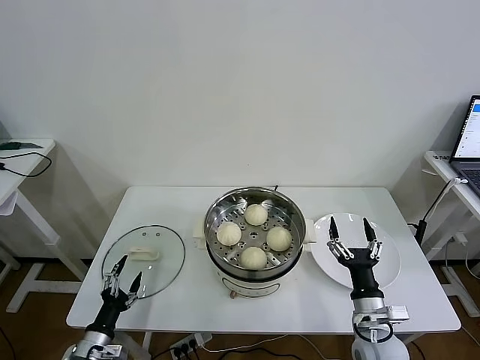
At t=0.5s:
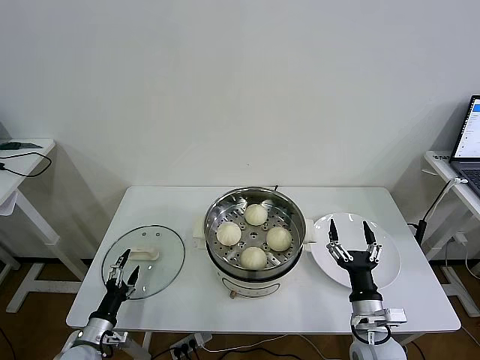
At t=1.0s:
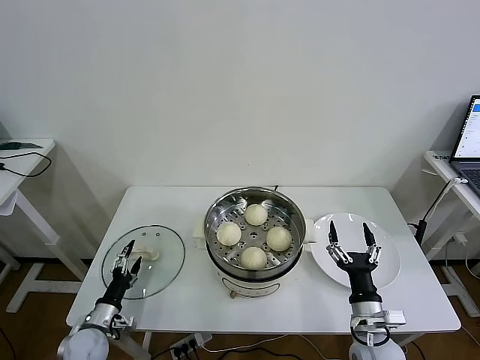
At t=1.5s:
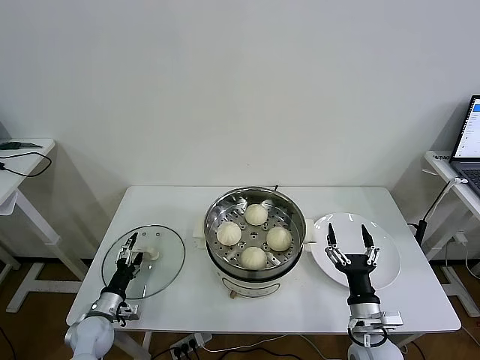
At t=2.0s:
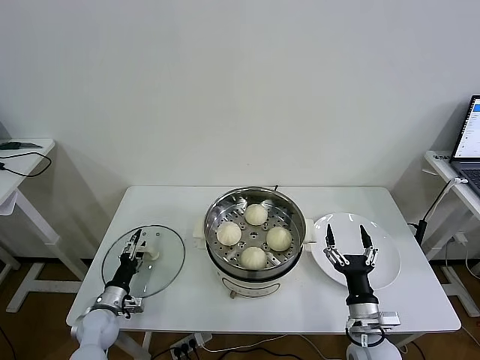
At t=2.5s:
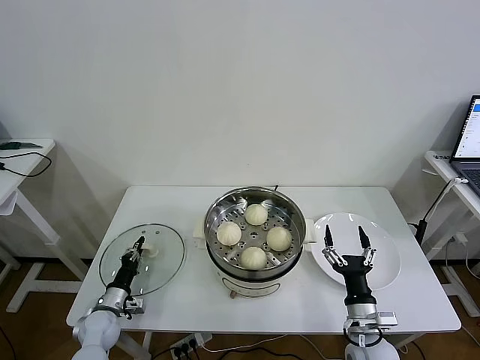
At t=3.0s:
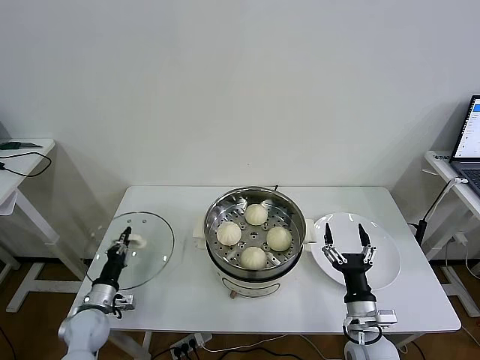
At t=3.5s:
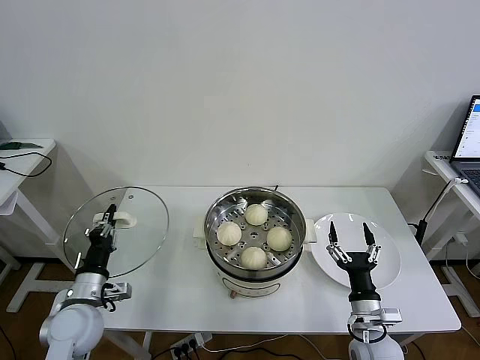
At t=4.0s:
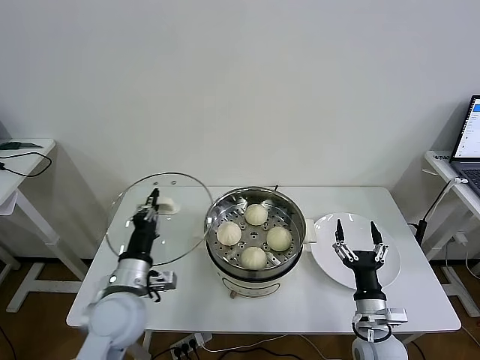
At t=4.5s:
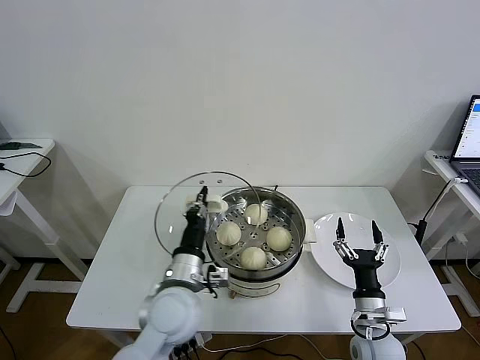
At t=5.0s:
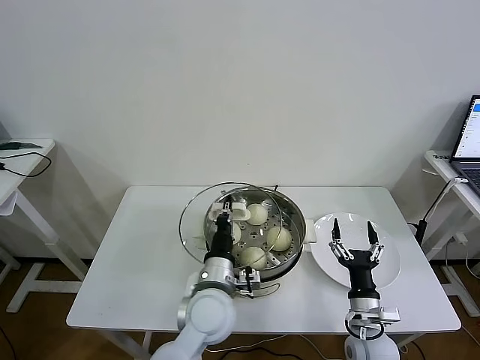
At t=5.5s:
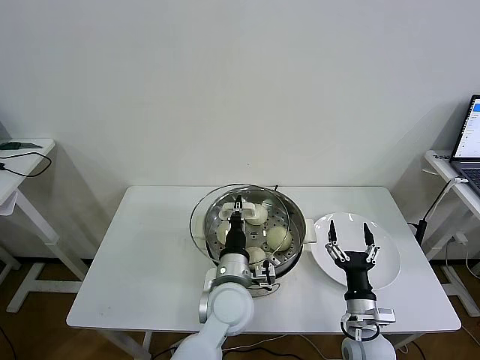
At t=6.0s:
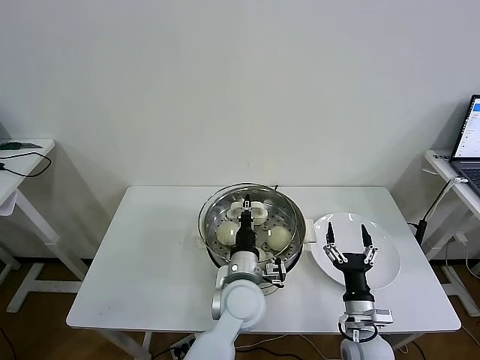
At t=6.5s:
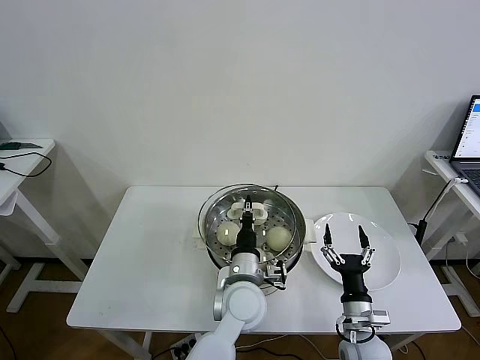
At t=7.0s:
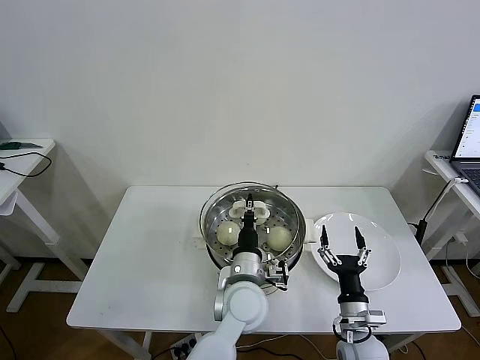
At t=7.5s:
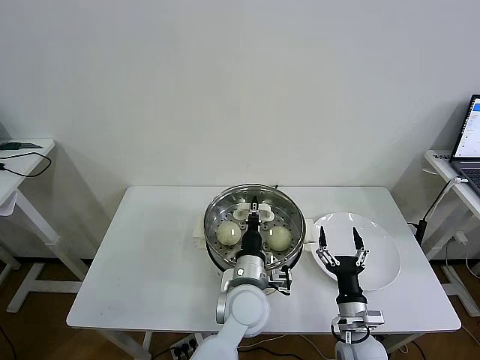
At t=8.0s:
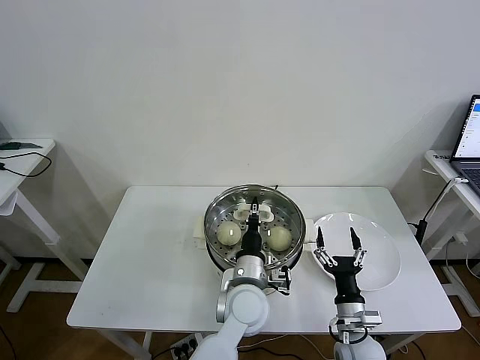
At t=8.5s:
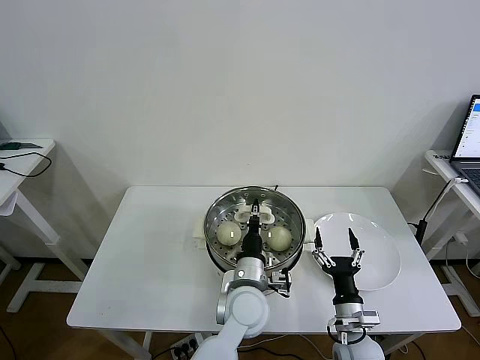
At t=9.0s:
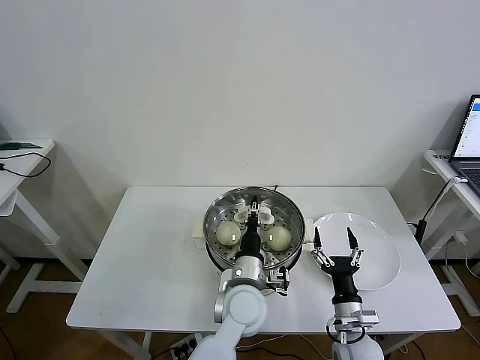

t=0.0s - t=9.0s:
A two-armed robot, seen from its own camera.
Task of the whole recording: take steamed baozi put them in steamer then cover it.
Step, t=0.0s - t=2.5s: Grasp the pot lid with left gripper.
t=0.0s - t=2.0s: The left gripper shifts roughly 10 cm forward.
t=2.0s - t=4.5s: The left gripper goes some 30 cm to the right and upward, and closes its fingers.
t=4.5s - t=7.0s: The left gripper goes about 15 cm to the right.
t=7.0s - t=9.0s: Both grippers stay put.

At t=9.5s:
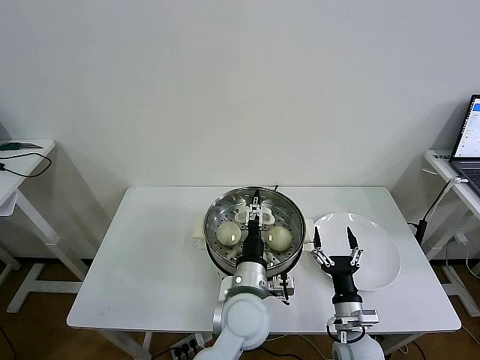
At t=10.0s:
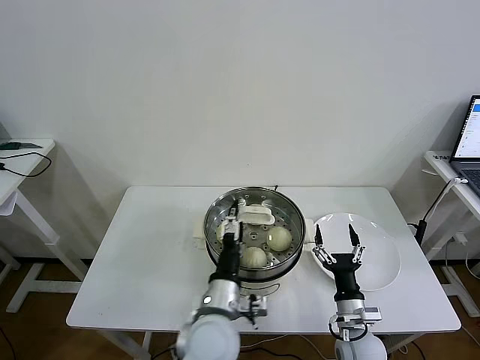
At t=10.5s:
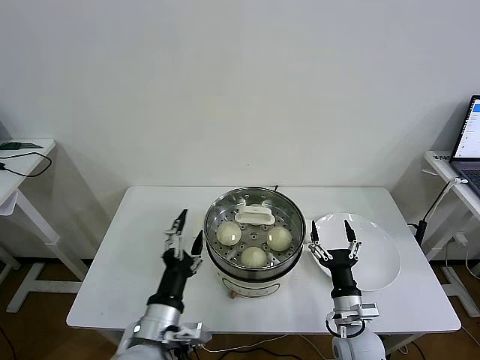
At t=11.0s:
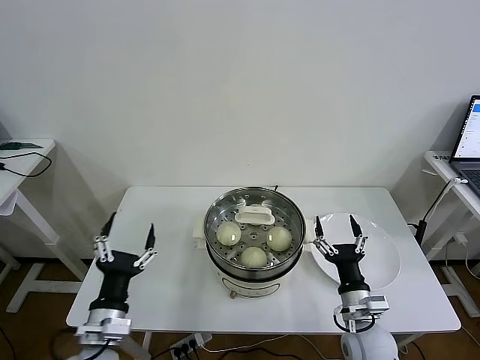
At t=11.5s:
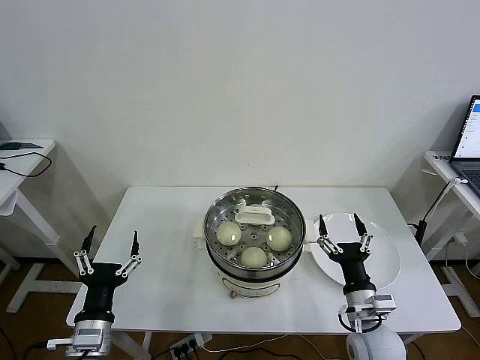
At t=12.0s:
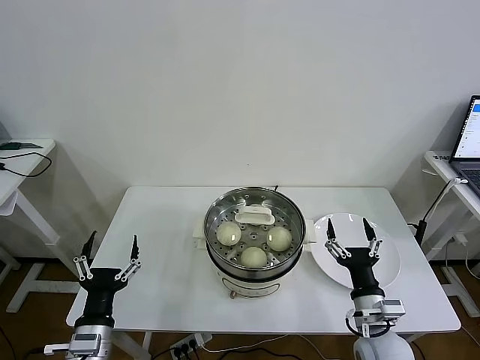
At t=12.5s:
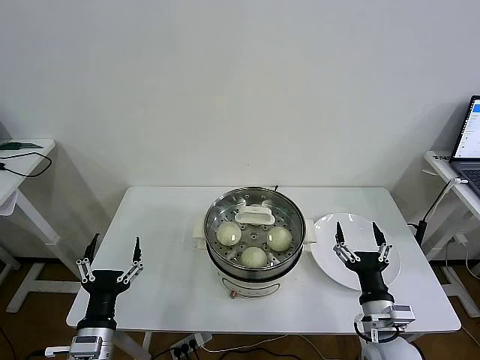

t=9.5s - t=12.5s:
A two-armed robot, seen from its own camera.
Task of the whole recording: take steamed baozi put them in steamer then cover it.
t=9.5s - t=11.0s: The left gripper goes some 25 cm to the left.
t=11.0s - t=12.5s: The left gripper moves approximately 5 cm.
